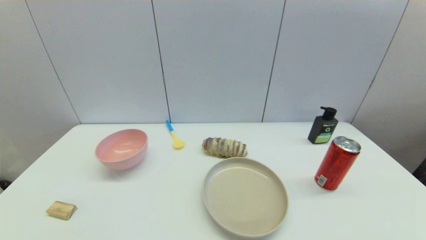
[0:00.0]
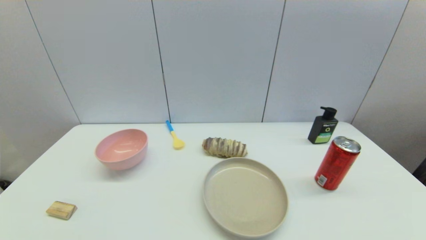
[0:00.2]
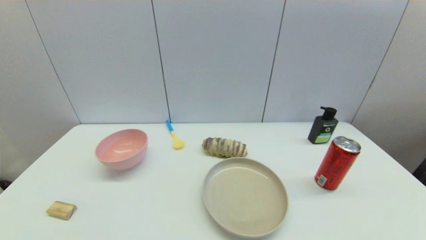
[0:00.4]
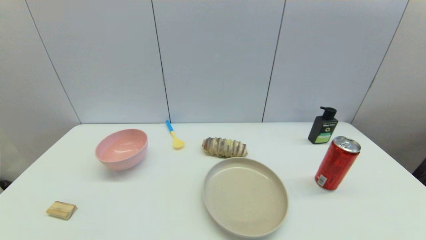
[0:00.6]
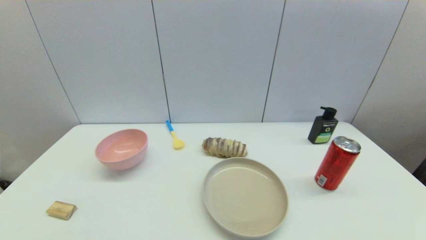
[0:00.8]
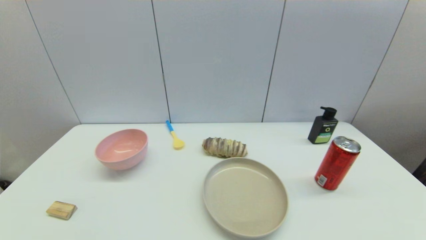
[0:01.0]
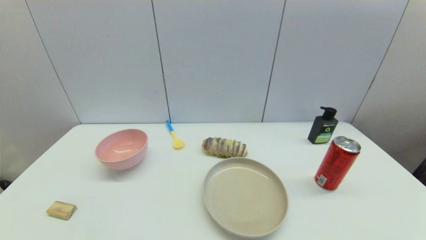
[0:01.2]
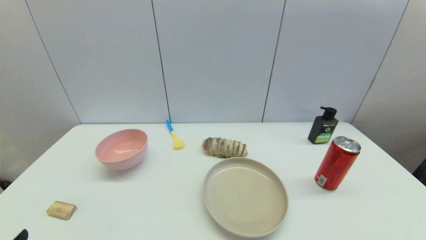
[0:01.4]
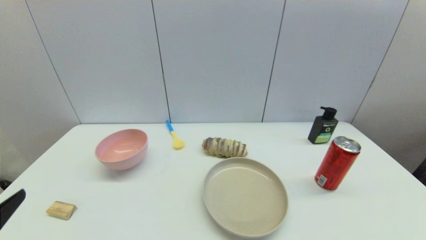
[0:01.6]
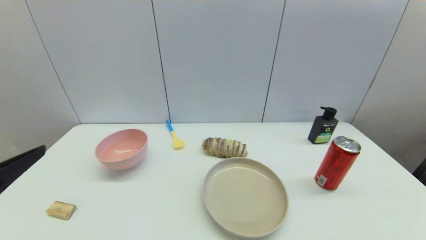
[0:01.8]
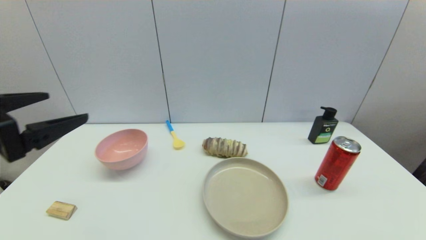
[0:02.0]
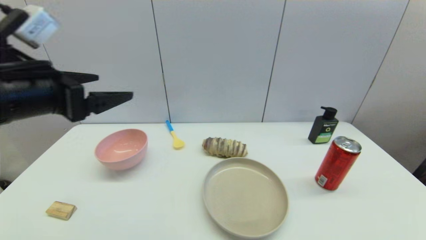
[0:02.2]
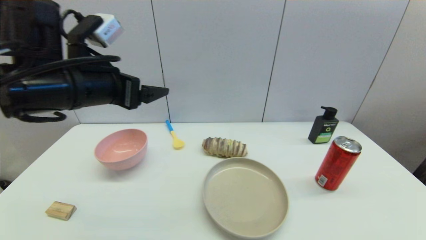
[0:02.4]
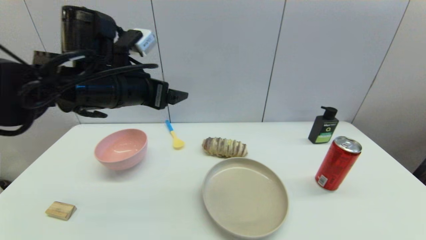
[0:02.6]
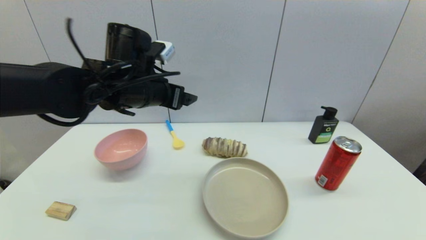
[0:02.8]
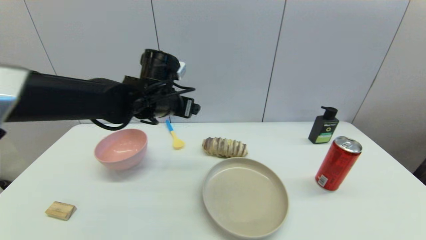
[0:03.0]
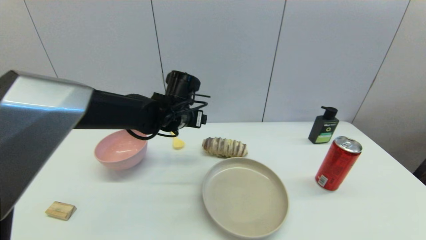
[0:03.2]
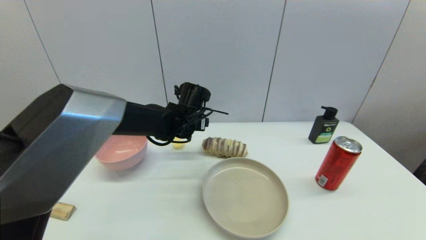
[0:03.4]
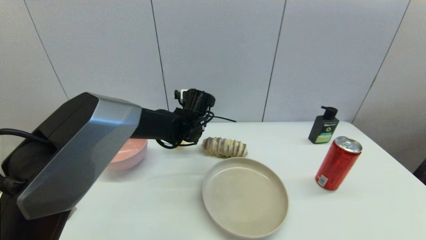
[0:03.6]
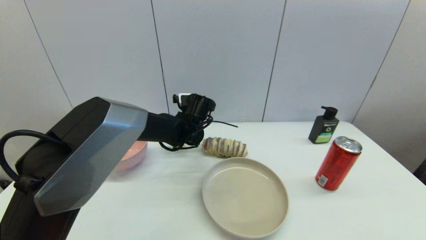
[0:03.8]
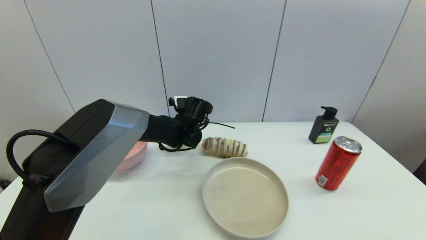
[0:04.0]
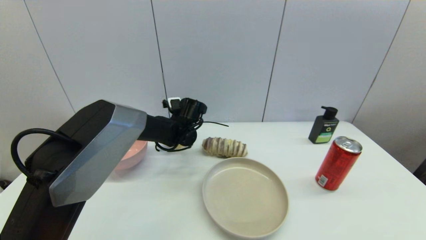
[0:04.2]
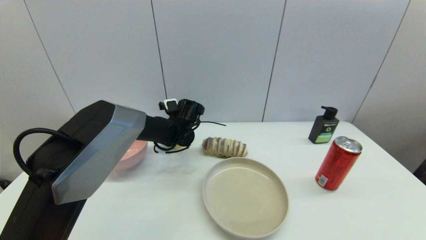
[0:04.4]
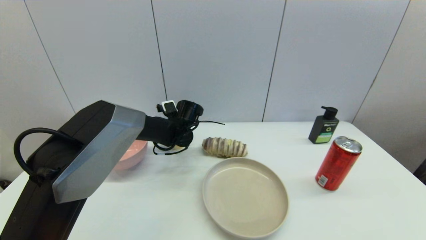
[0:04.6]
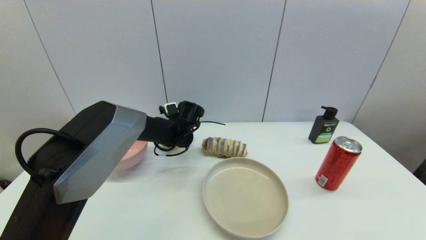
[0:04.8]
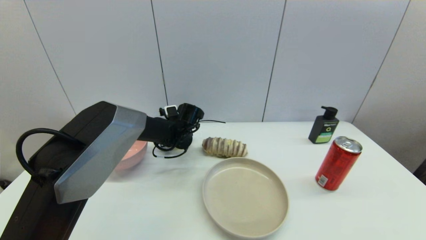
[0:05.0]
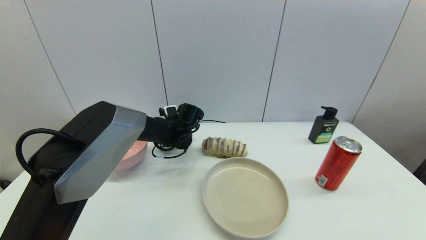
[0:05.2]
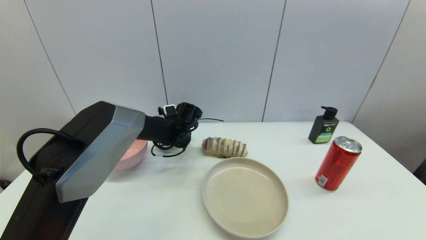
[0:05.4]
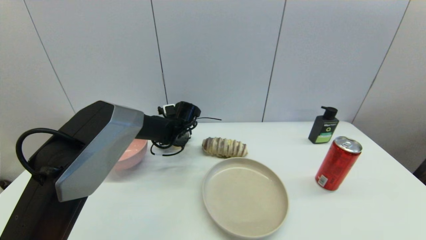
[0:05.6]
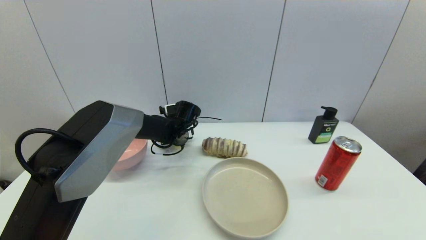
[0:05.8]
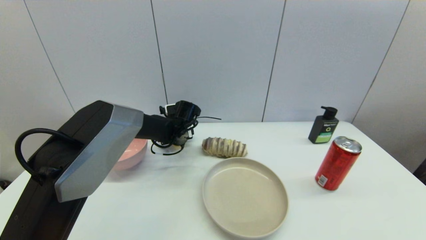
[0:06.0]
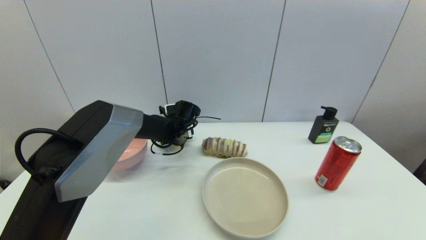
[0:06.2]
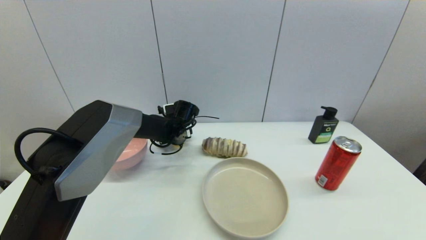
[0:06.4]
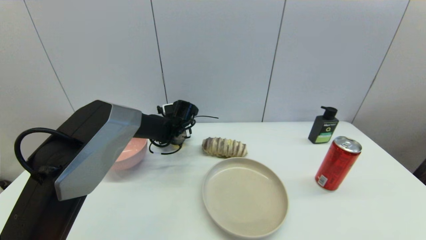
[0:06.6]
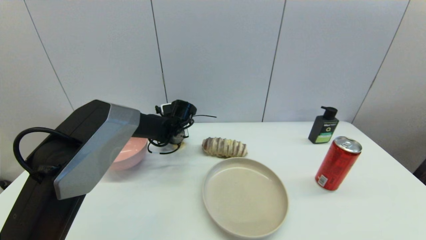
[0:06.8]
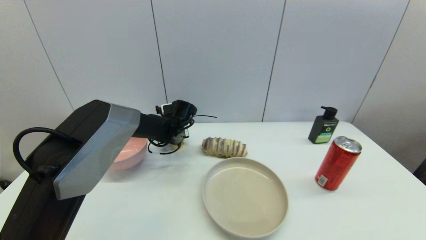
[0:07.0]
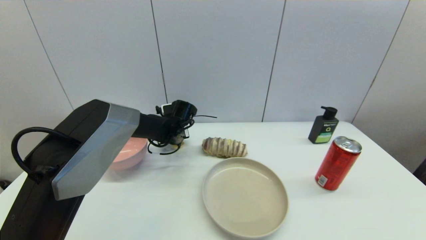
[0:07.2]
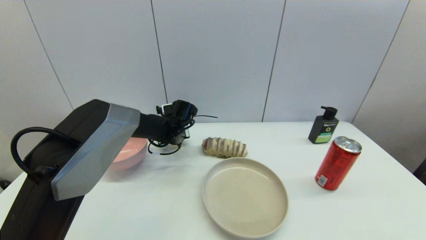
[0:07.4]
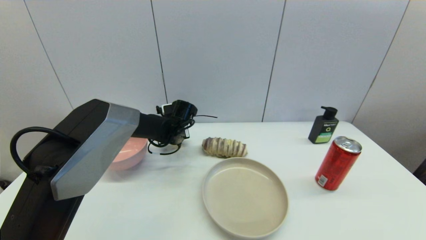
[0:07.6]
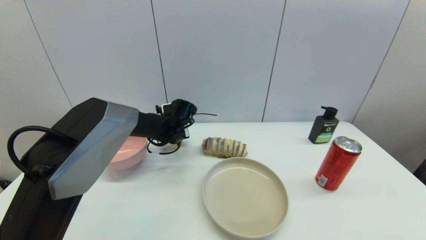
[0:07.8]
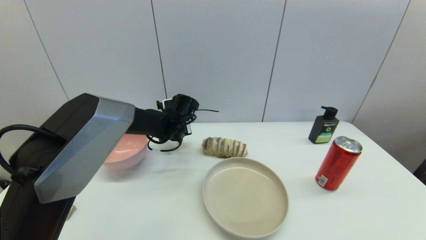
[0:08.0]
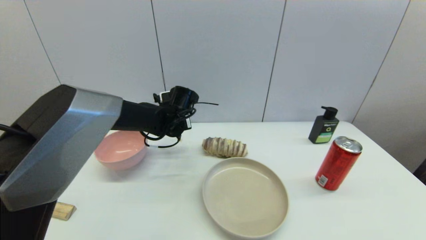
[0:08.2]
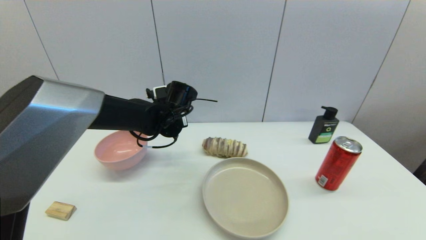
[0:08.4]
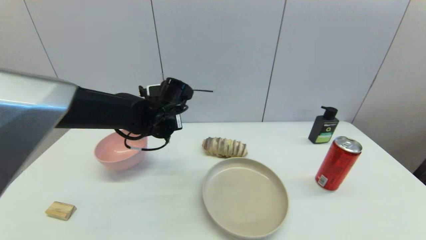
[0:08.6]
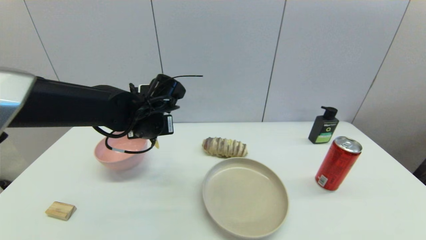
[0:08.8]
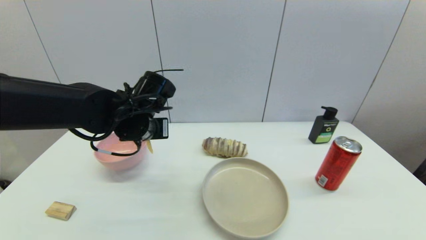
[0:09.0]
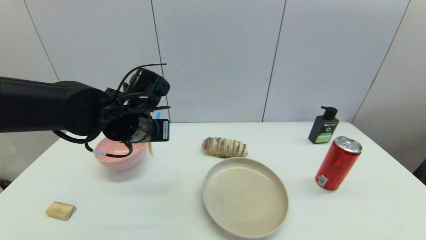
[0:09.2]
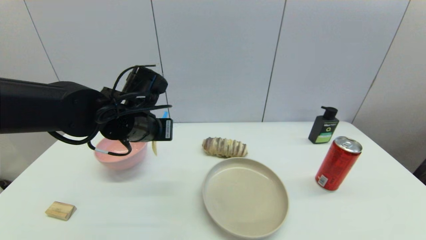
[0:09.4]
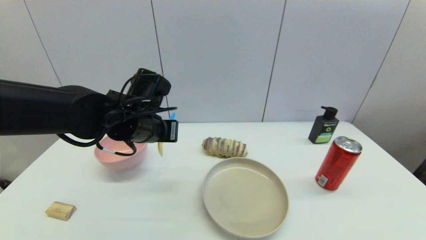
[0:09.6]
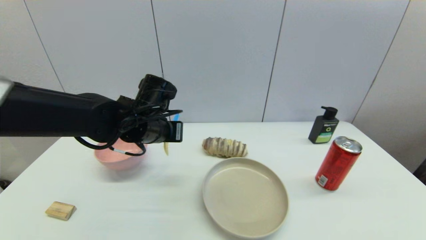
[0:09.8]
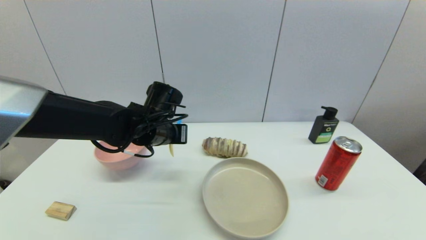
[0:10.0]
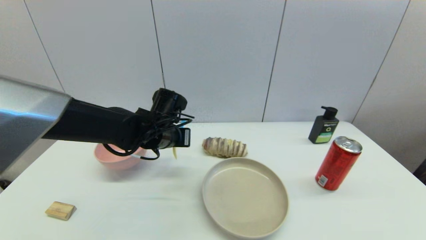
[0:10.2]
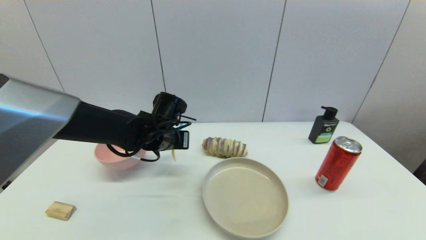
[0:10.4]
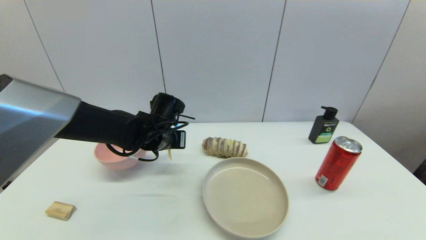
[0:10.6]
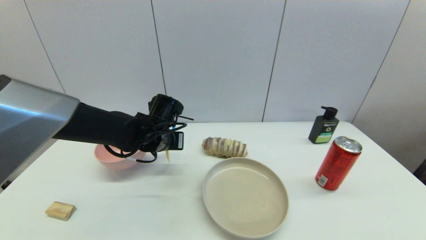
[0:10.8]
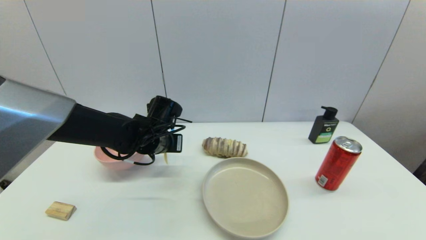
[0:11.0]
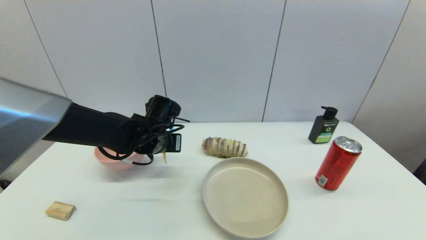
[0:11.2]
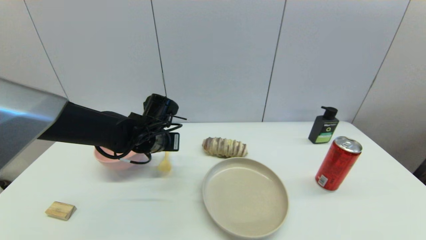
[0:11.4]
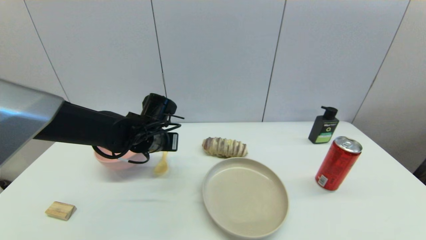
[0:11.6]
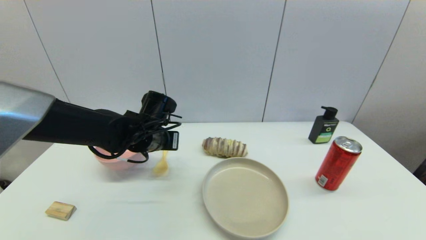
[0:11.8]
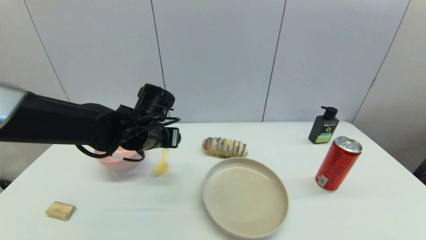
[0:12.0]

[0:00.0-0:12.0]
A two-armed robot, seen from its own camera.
Step, 0:01.4 to 0:07.4: Grasp the spoon with left gripper.
Step, 0:07.6 to 0:11.4: Place the spoon on the table with left gripper.
0:01.6 to 0:03.0: The left gripper travels forward and to the right by roughly 40 cm.
0:03.0 to 0:04.4: The left gripper heads downward and forward, covering approximately 15 cm.
0:04.4 to 0:06.0: The grippers make only small movements.
0:06.0 to 0:07.6: The left gripper closes up.
0:07.6 to 0:09.0: The left gripper heads backward and upward, covering roughly 20 cm.
0:09.0 to 0:10.4: The left gripper travels downward by about 5 cm.
0:10.4 to 0:12.0: The left gripper moves about 5 cm, and opens.

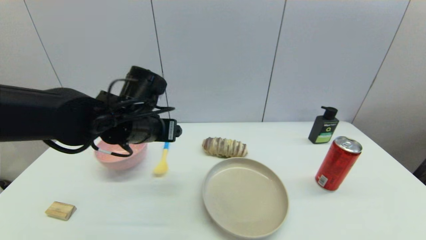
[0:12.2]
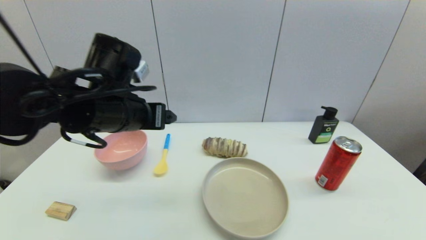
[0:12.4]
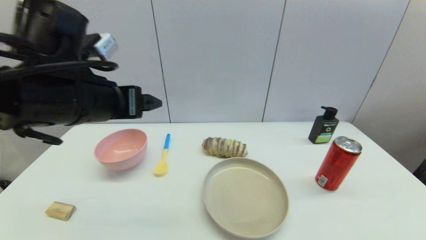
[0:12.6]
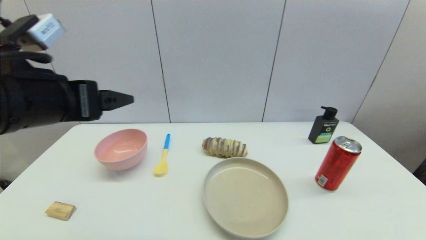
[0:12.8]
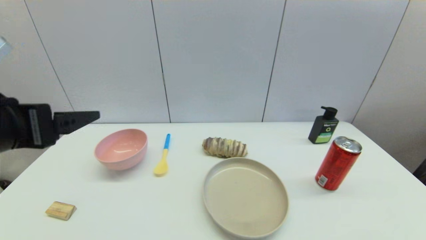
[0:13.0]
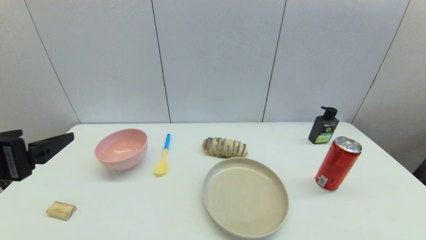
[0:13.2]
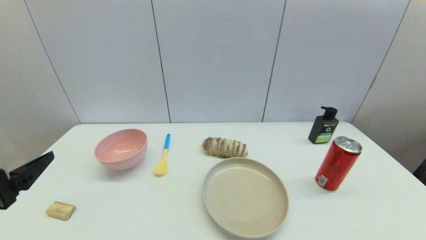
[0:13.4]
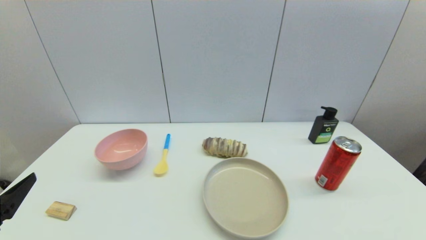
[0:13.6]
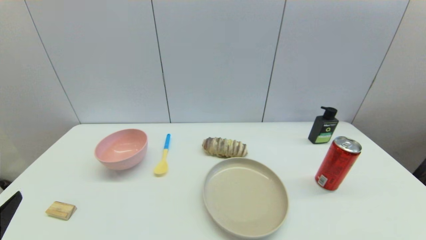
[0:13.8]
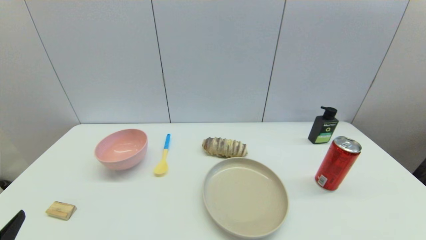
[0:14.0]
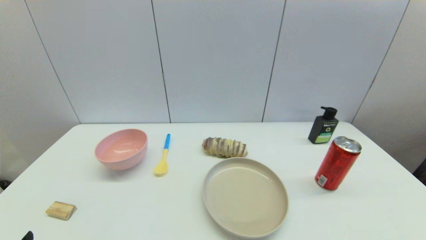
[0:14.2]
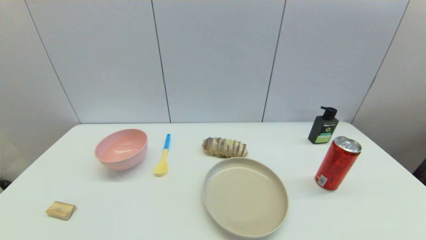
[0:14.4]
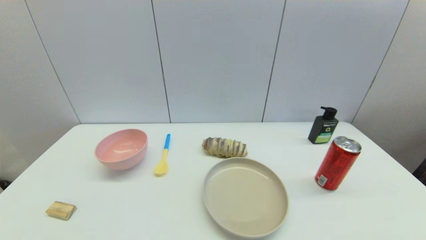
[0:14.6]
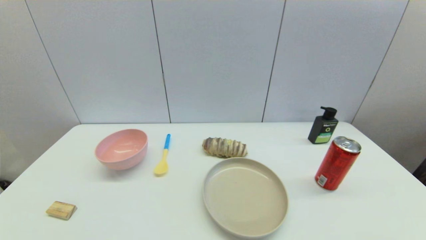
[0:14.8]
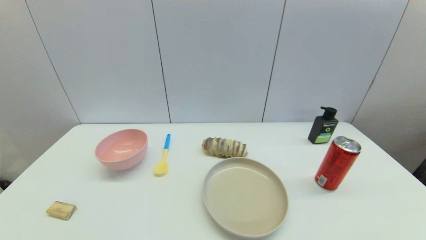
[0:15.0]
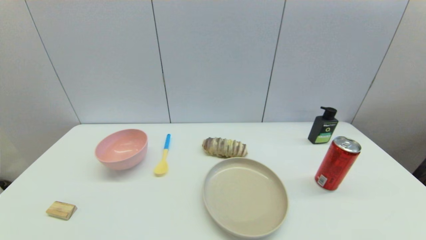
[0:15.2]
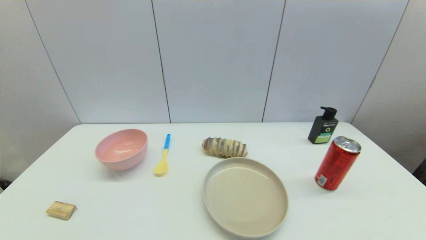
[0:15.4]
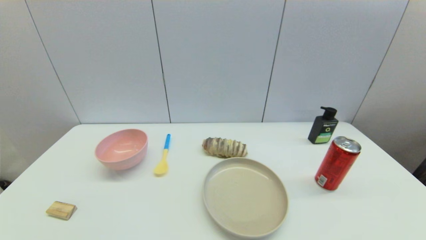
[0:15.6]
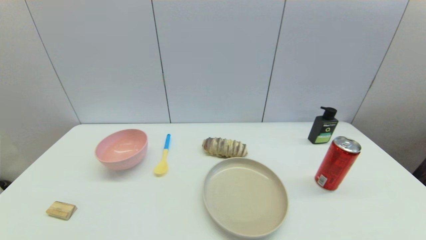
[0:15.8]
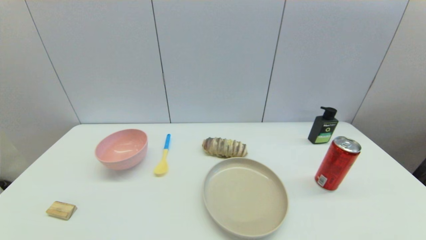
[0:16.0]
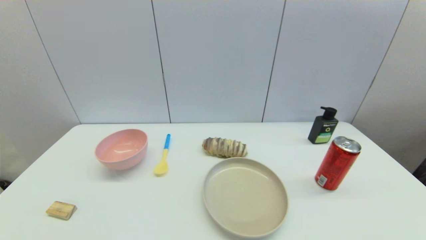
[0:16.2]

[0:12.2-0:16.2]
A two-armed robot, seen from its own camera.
0:12.2 to 0:13.6: The left gripper goes about 30 cm backward and to the left.
0:13.6 to 0:14.8: The left gripper goes approximately 15 cm downward and backward.
